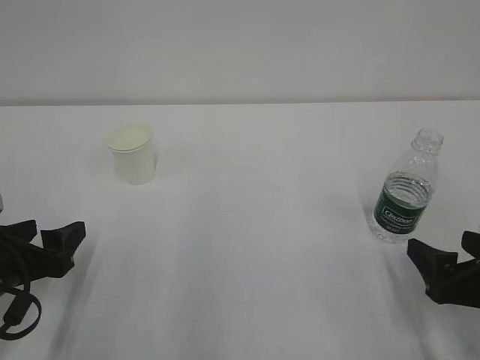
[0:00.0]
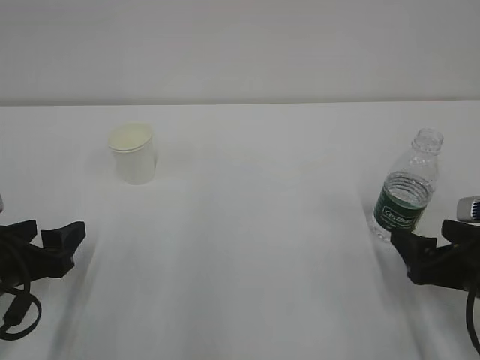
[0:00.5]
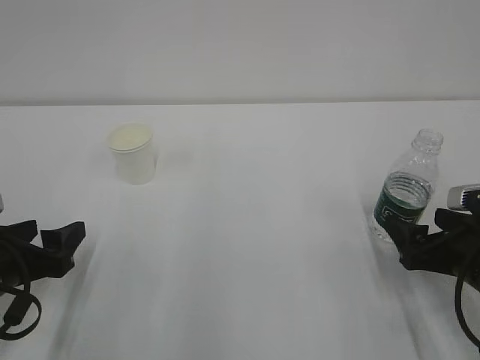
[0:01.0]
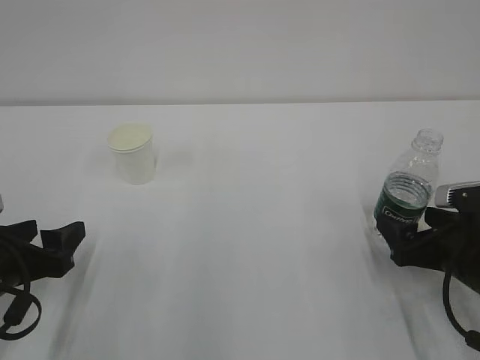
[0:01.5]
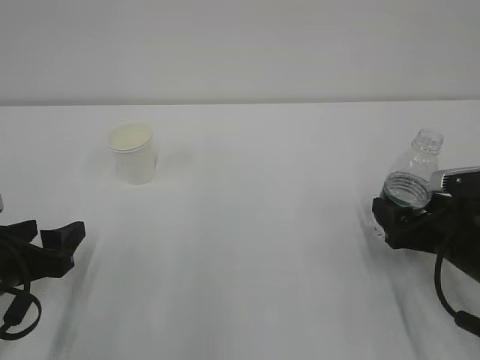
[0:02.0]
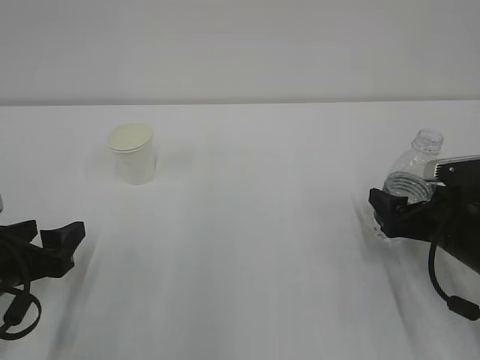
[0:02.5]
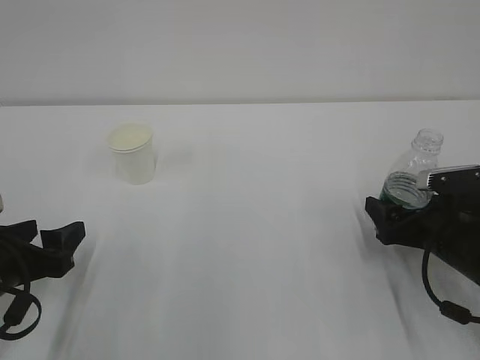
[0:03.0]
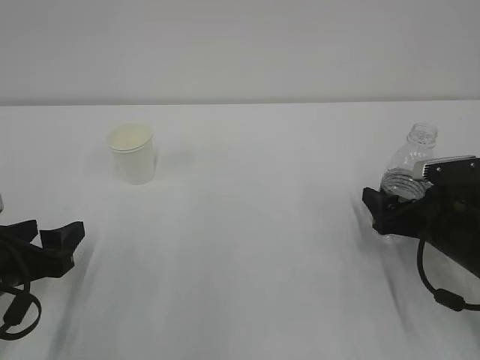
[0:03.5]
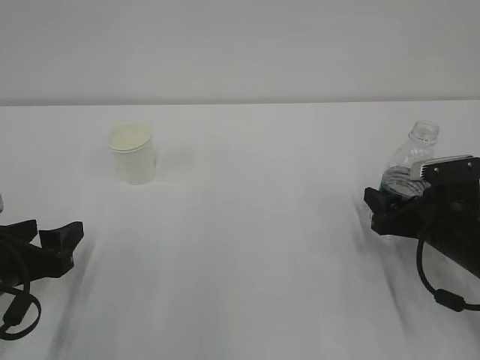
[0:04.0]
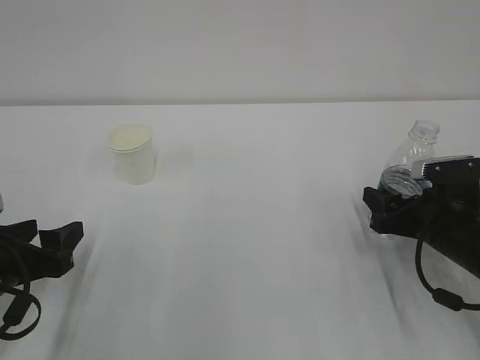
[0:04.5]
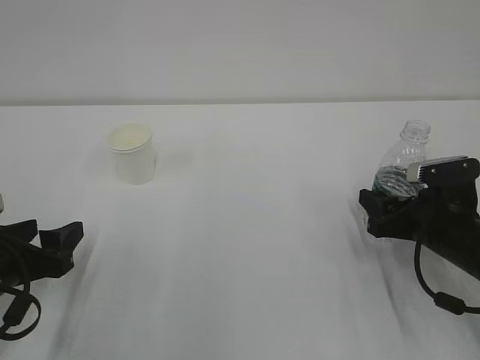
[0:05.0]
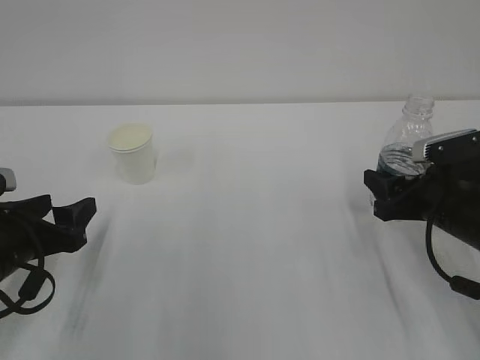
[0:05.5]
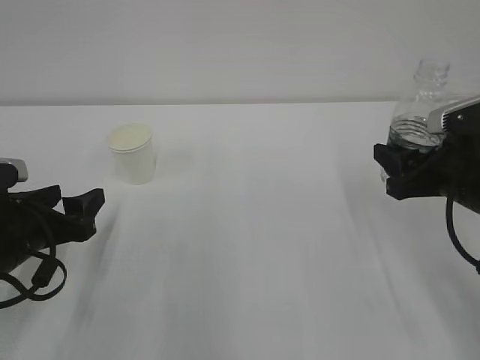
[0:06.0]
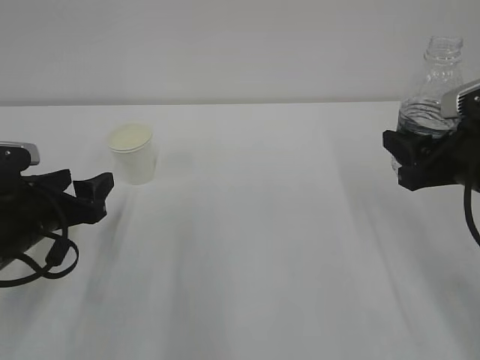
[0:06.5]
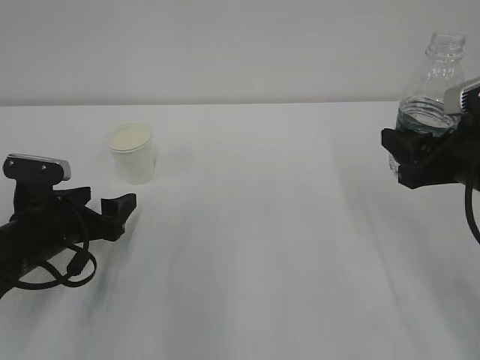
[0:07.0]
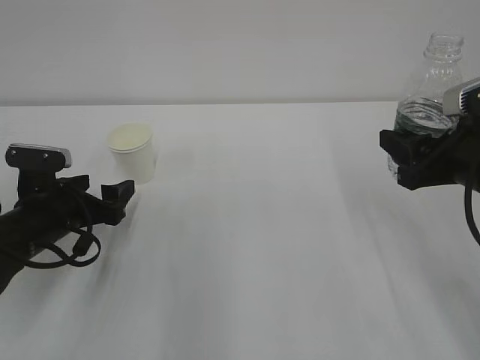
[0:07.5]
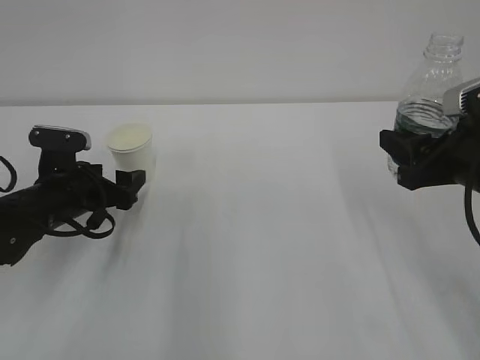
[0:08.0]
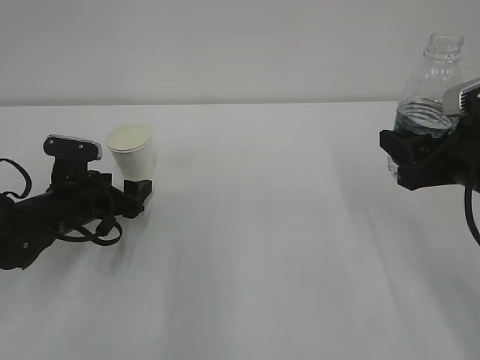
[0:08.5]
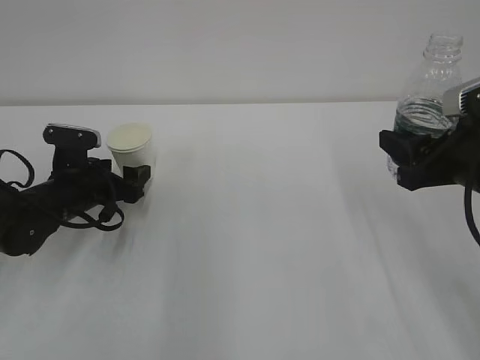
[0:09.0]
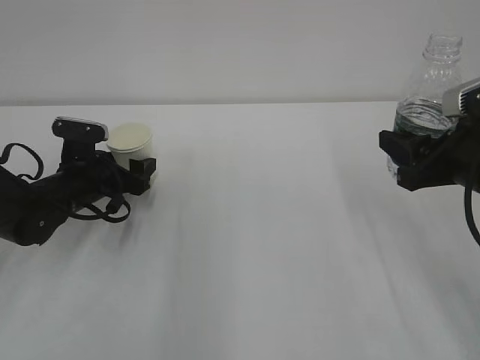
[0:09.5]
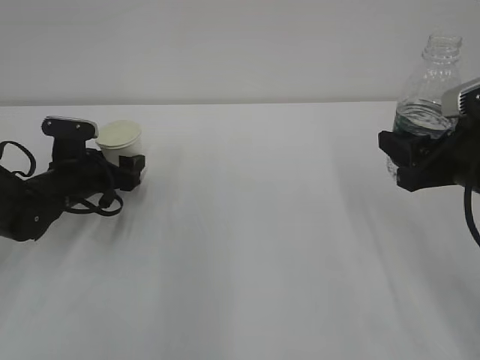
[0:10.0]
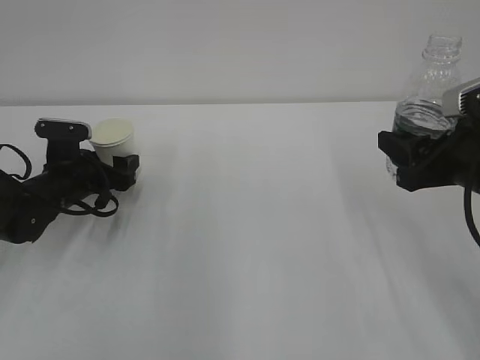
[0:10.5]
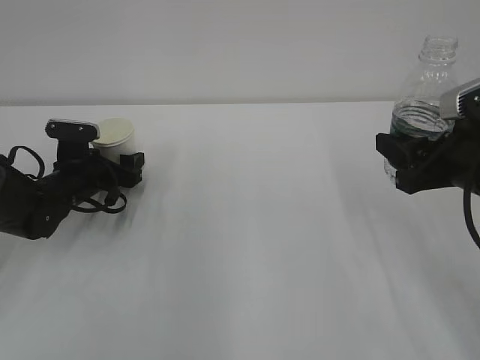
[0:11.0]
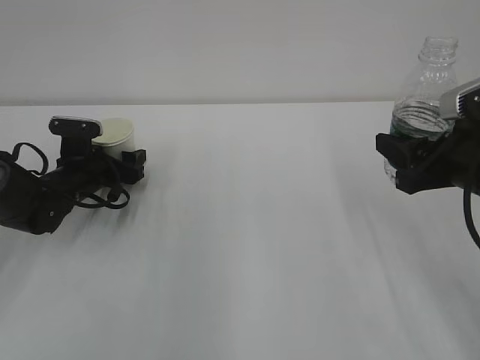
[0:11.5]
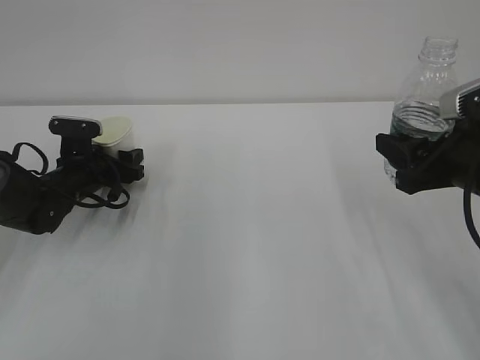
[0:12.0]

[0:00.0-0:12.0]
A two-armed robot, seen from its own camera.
0:00.0 to 0:02.0: The right gripper shifts roughly 10 cm forward.
0:02.0 to 0:04.0: The right gripper closes its fingers.
0:04.0 to 0:06.0: The right gripper goes about 10 cm upward.
0:06.0 to 0:08.0: The left gripper shifts approximately 10 cm forward, and opens.
0:08.0 to 0:10.0: The left gripper shifts some 5 cm forward.
0:10.0 to 0:12.0: The left gripper closes.

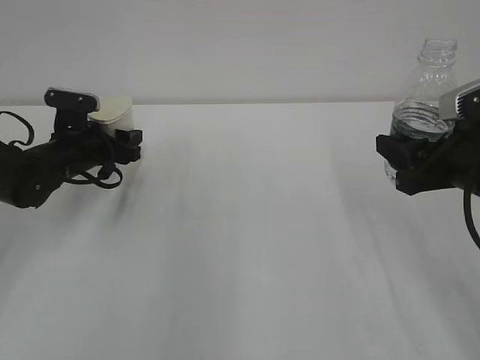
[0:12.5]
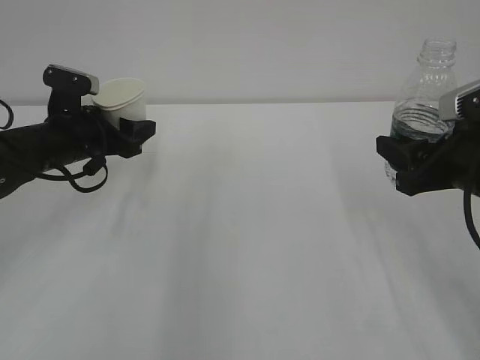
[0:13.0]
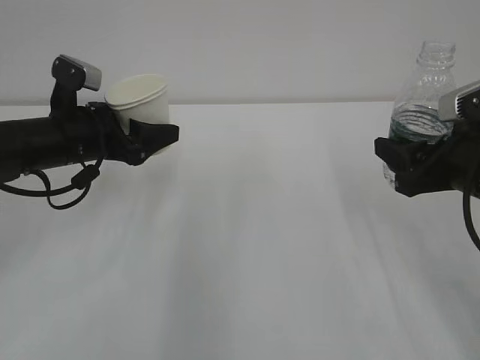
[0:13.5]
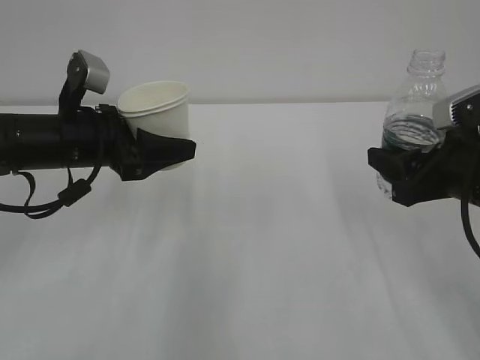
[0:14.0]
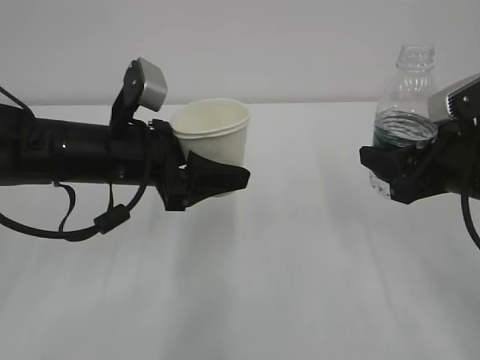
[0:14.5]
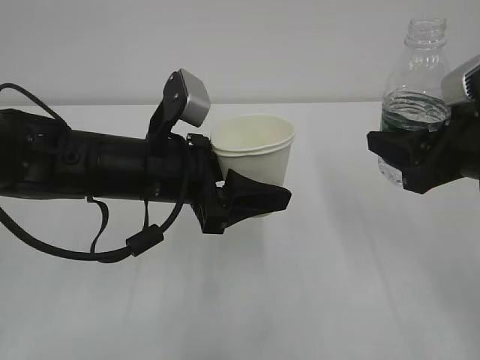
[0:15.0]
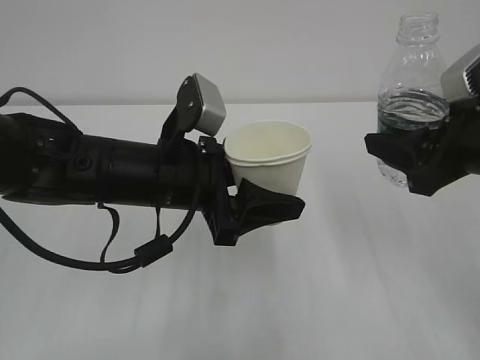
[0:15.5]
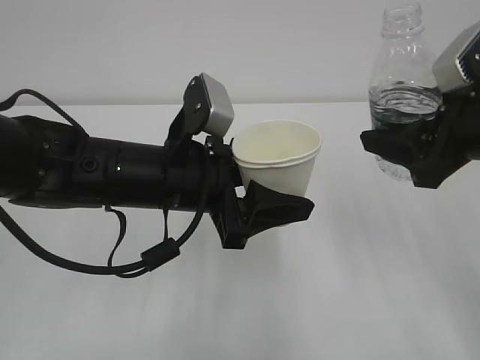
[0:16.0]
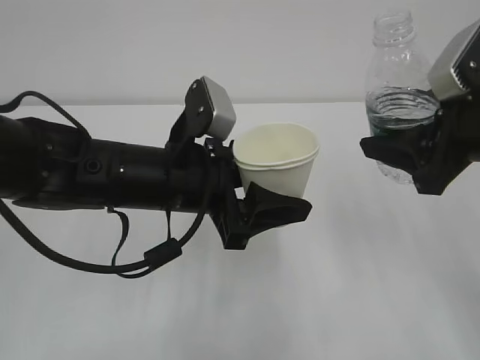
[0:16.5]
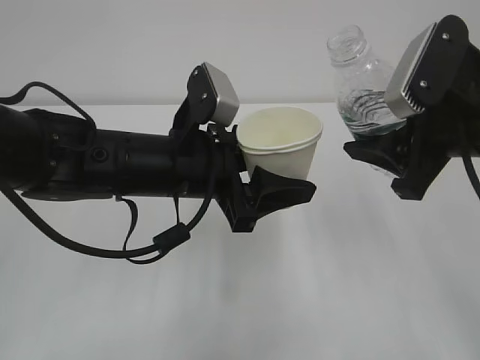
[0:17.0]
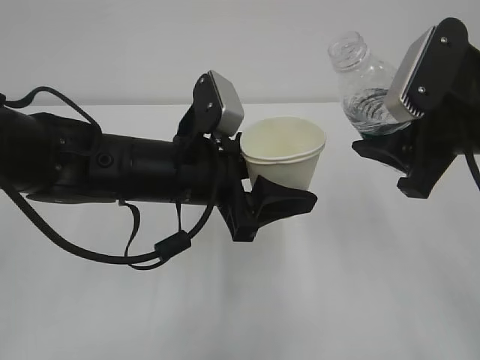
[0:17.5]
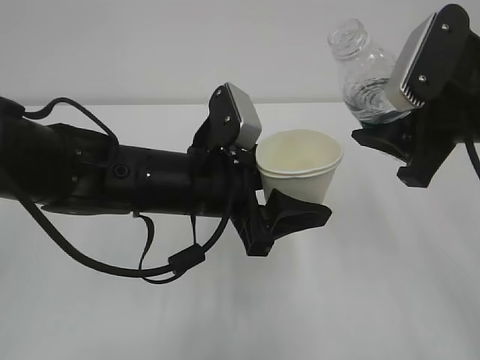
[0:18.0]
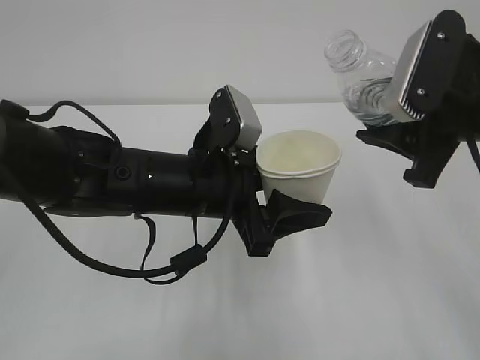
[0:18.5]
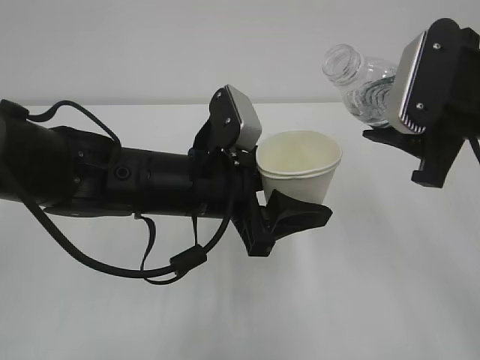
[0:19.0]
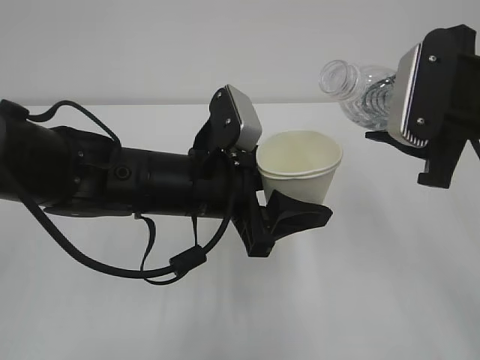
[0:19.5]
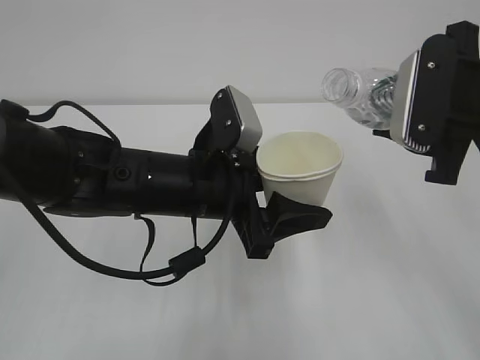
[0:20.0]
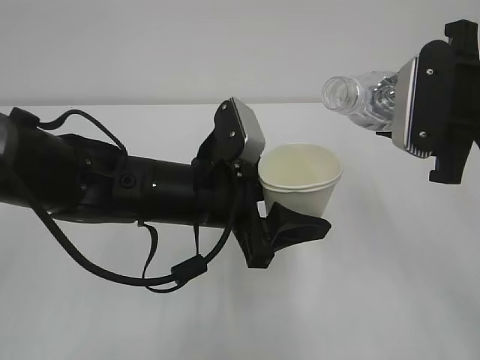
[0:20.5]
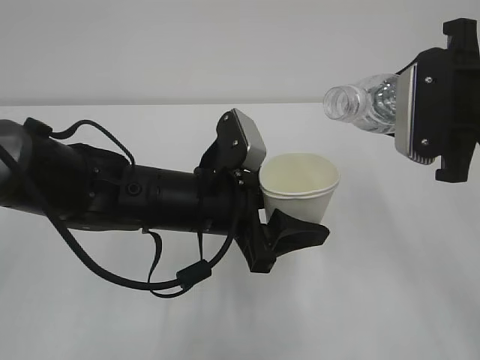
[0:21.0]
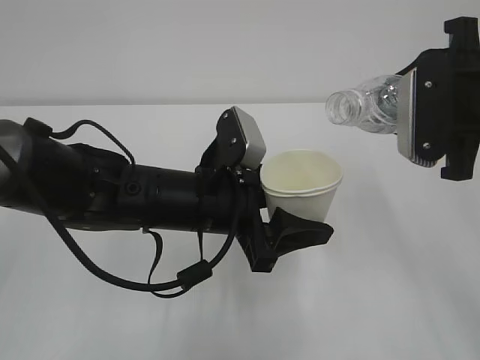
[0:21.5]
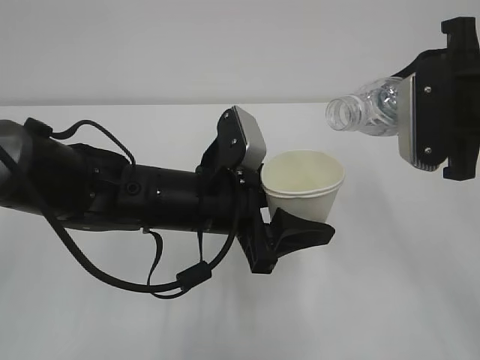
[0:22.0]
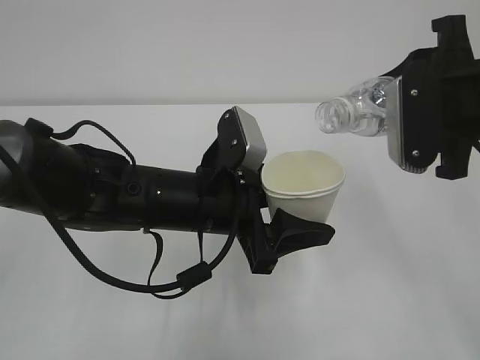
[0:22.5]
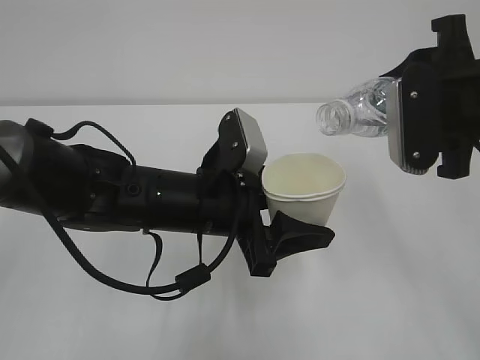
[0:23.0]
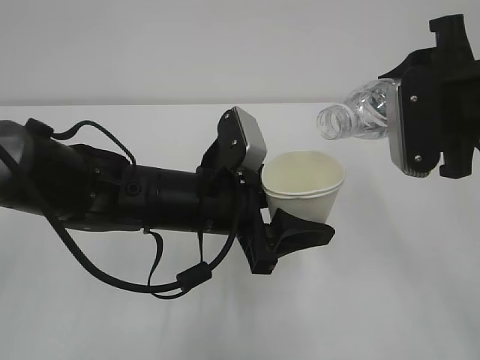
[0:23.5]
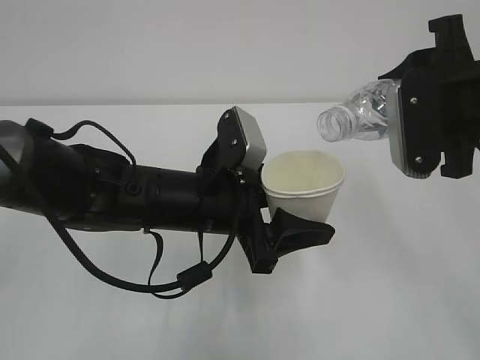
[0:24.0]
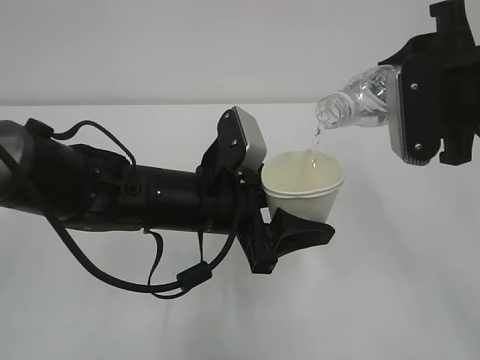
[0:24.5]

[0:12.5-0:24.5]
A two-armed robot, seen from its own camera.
0:12.5 to 0:14.5: The left gripper heads backward, to the right and upward, covering roughly 20 cm.
0:14.5 to 0:16.5: The right gripper heads upward, covering some 5 cm, while the left gripper goes some 5 cm to the right.
0:20.5 to 0:24.5: The grippers move only a little.

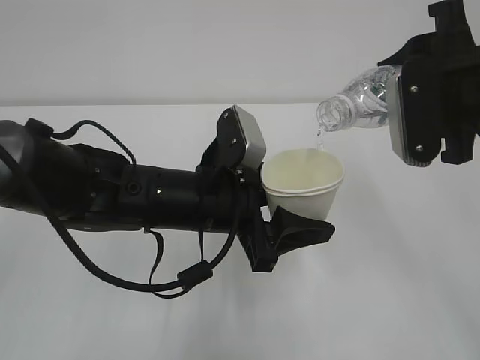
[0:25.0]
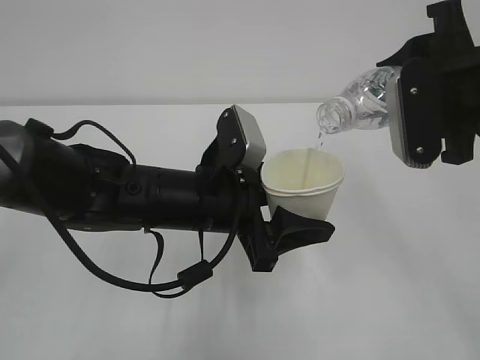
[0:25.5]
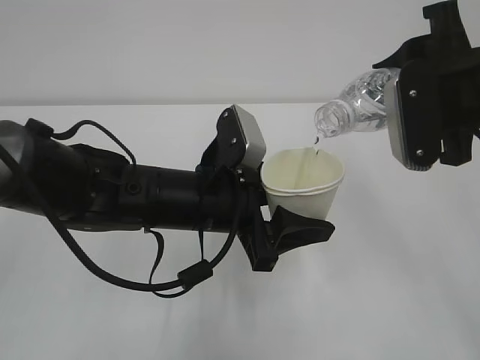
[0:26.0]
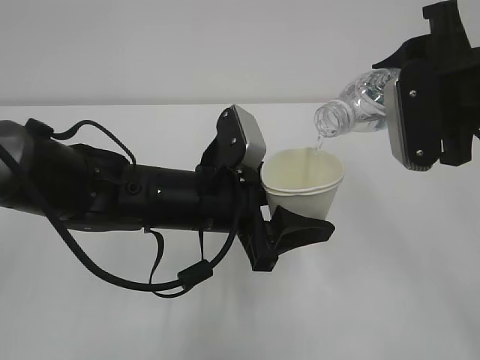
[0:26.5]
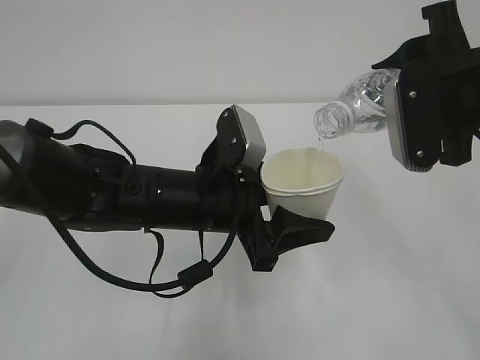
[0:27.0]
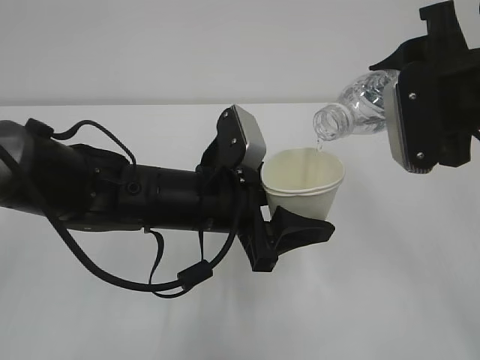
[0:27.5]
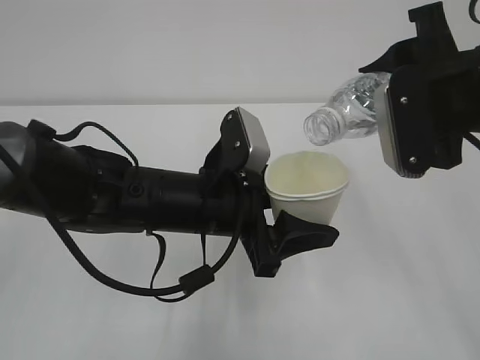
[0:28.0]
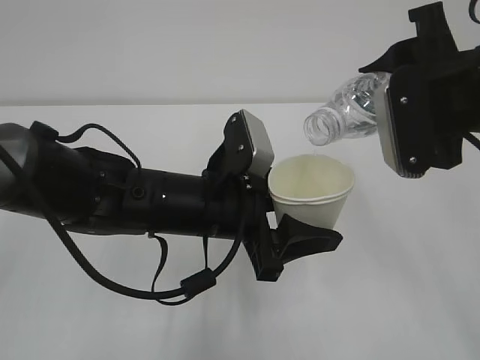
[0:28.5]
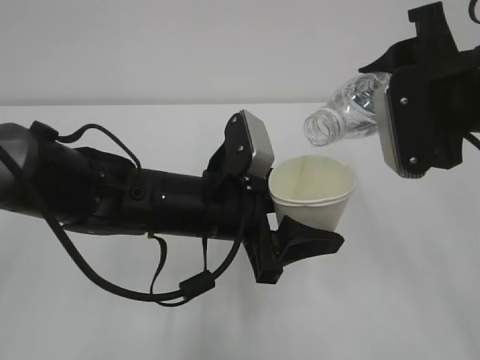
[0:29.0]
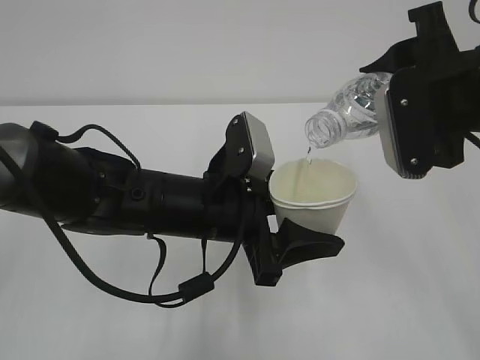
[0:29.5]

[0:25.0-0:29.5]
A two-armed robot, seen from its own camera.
0:25.0 to 0:27.0: Both grippers stay about where they are.
0:27.0 to 0:29.5: Both grippers stay about where they are.
